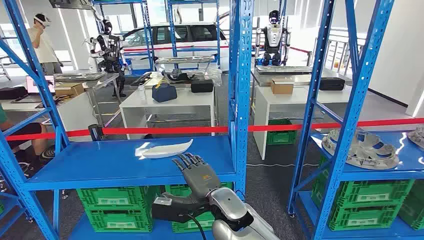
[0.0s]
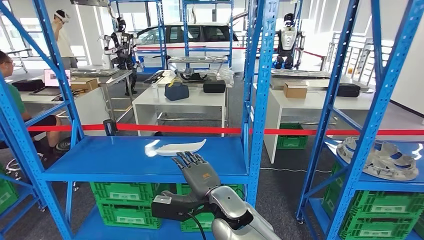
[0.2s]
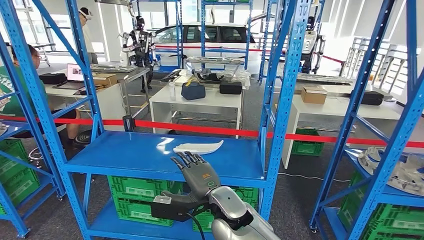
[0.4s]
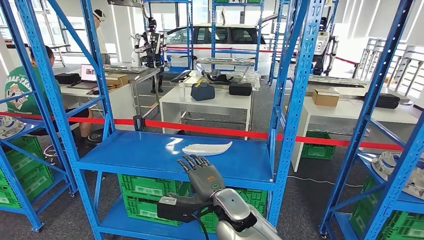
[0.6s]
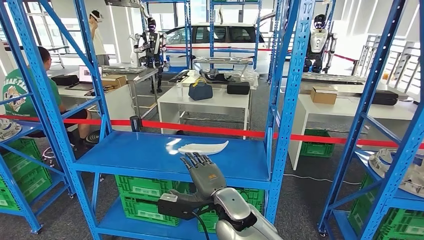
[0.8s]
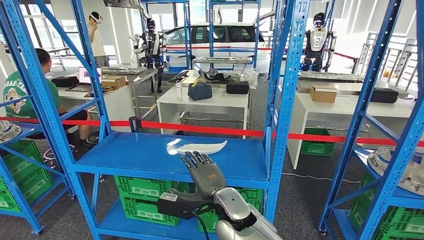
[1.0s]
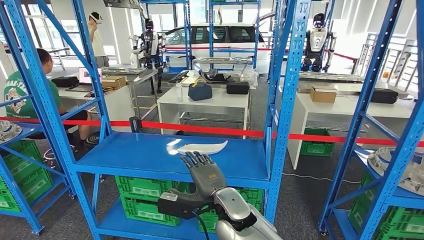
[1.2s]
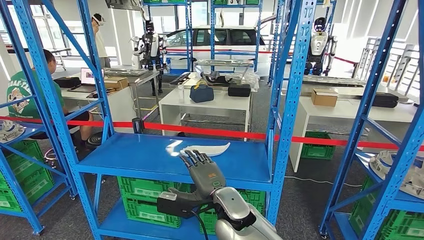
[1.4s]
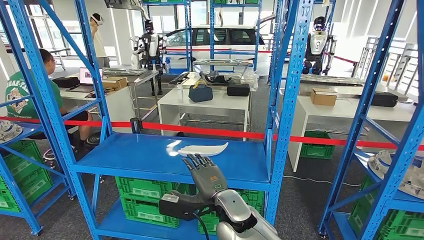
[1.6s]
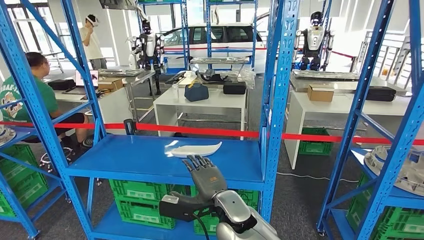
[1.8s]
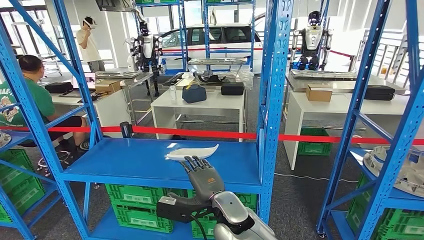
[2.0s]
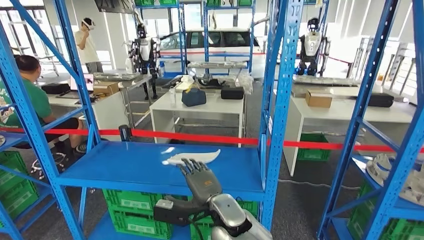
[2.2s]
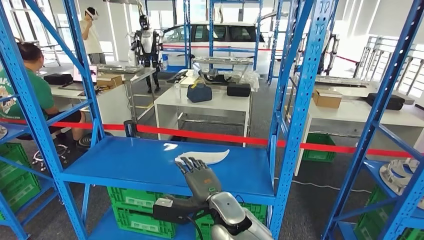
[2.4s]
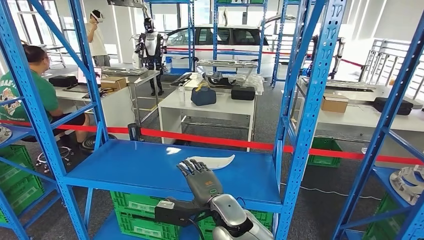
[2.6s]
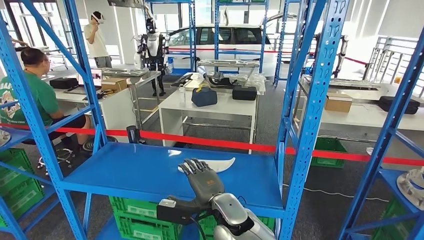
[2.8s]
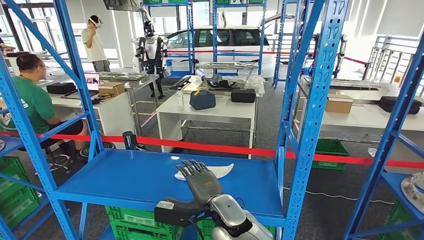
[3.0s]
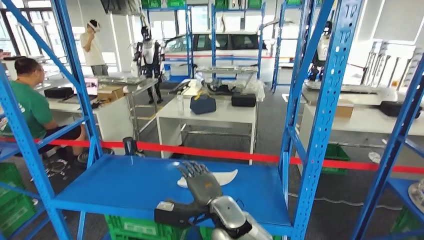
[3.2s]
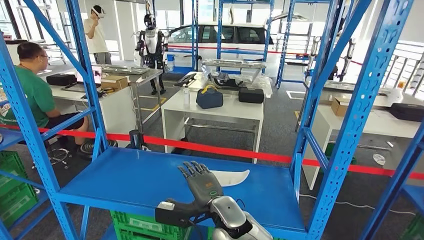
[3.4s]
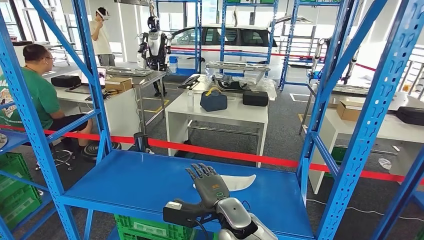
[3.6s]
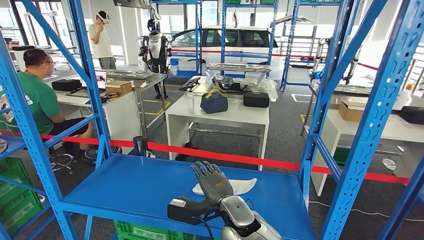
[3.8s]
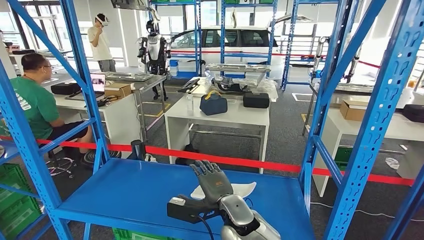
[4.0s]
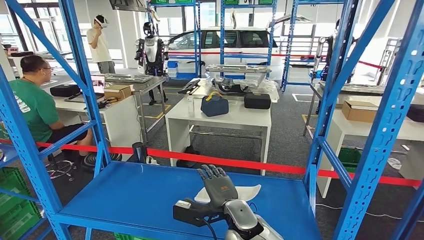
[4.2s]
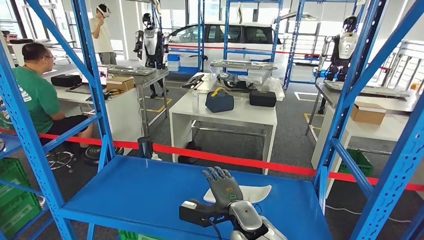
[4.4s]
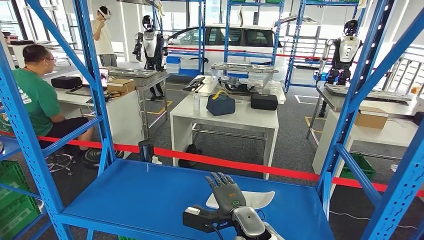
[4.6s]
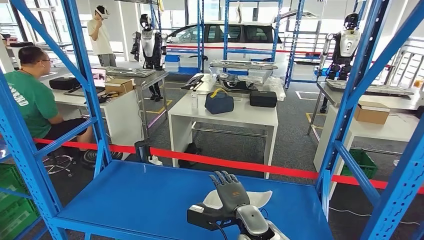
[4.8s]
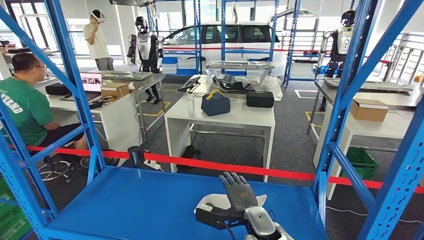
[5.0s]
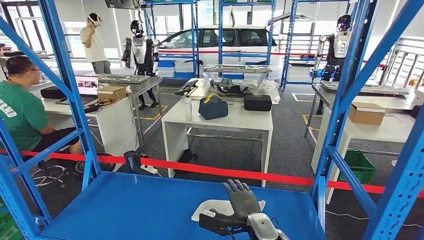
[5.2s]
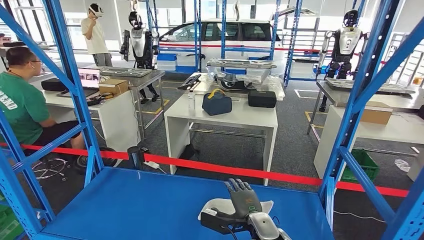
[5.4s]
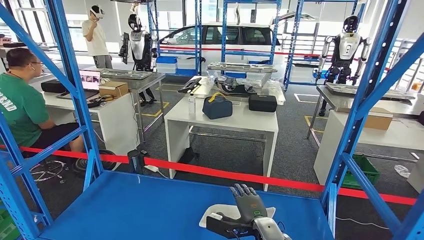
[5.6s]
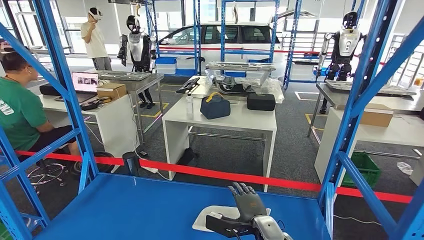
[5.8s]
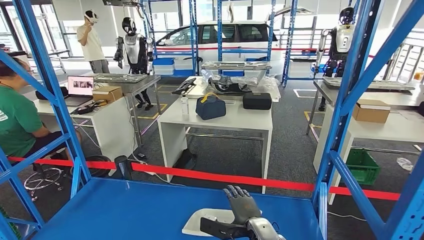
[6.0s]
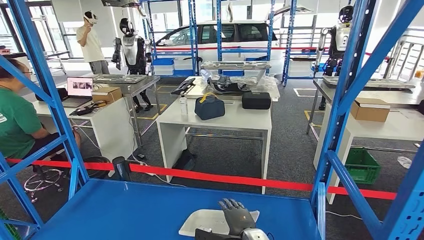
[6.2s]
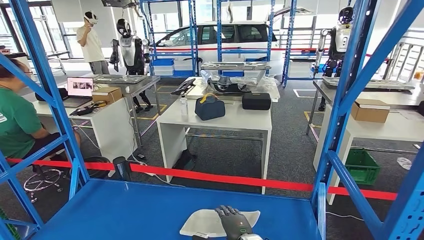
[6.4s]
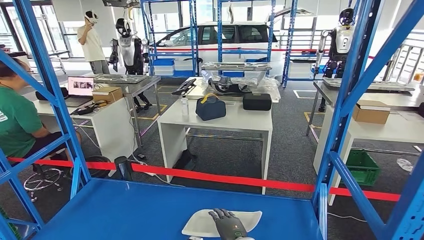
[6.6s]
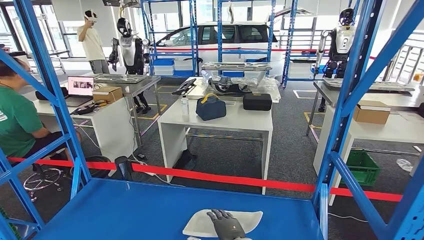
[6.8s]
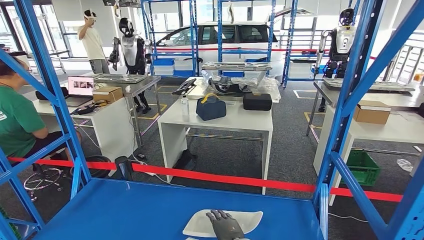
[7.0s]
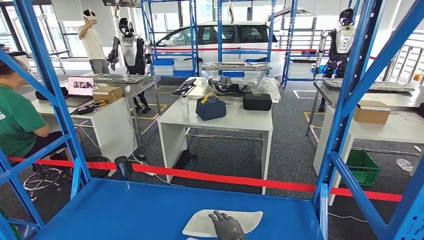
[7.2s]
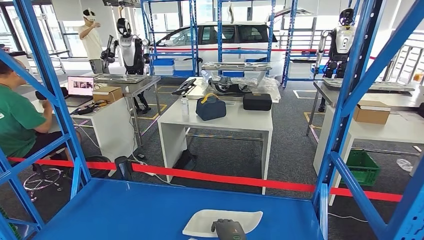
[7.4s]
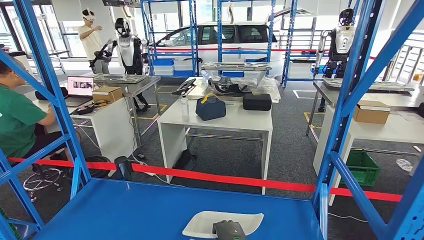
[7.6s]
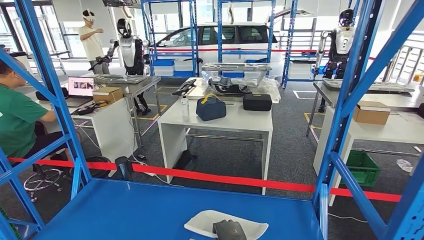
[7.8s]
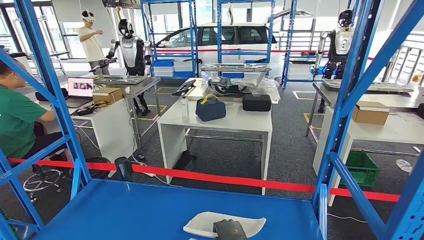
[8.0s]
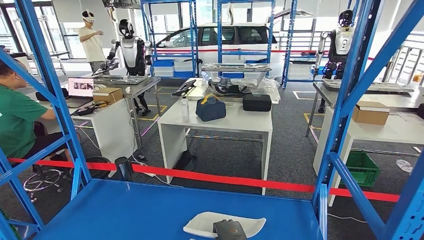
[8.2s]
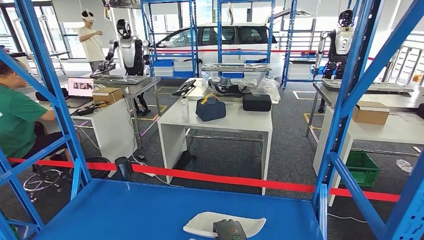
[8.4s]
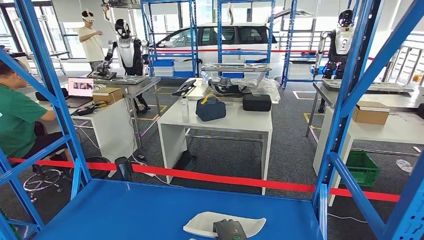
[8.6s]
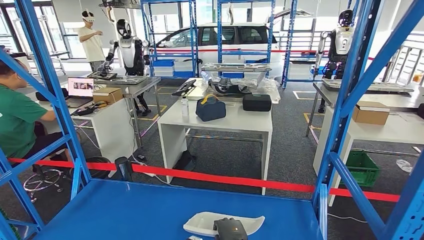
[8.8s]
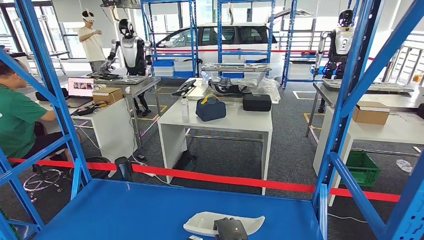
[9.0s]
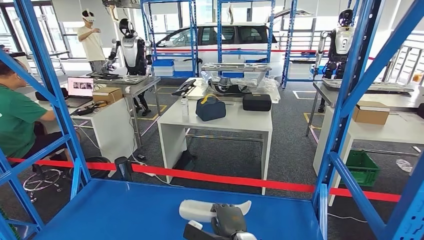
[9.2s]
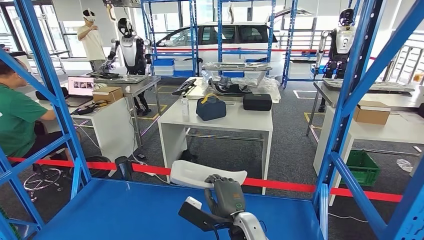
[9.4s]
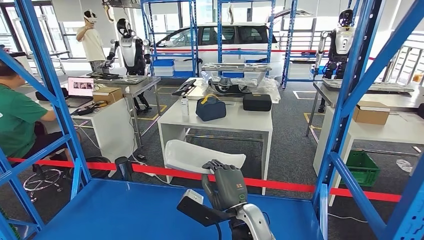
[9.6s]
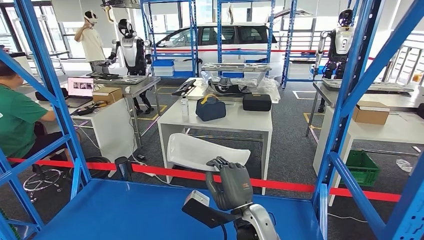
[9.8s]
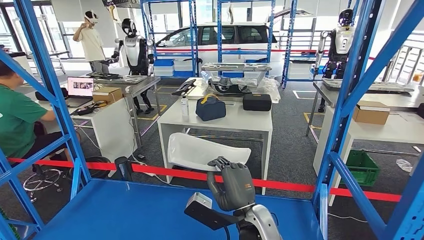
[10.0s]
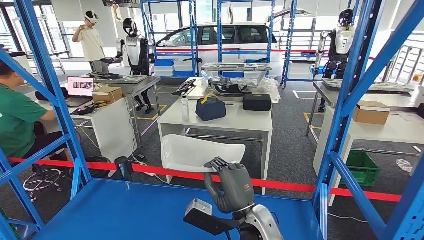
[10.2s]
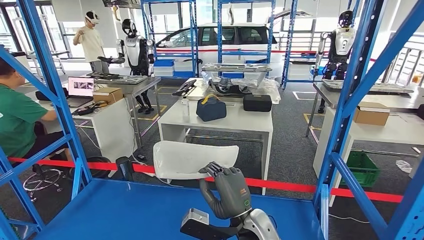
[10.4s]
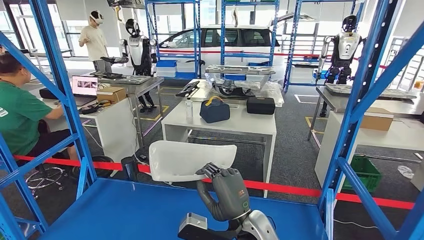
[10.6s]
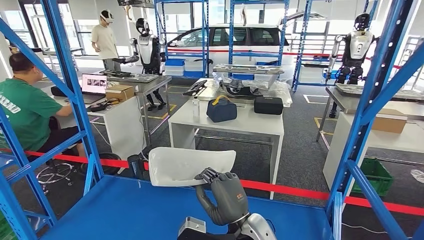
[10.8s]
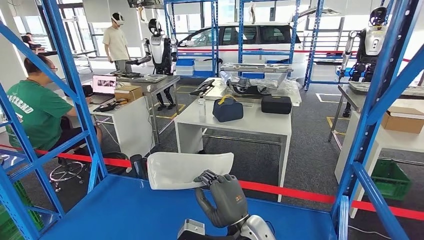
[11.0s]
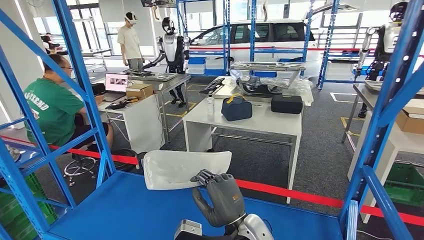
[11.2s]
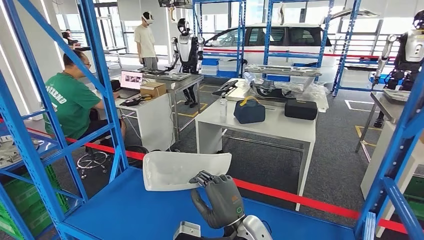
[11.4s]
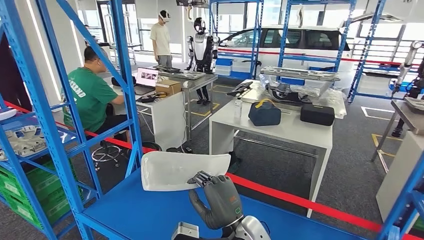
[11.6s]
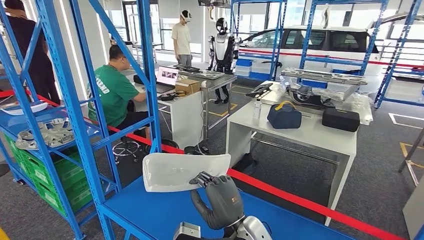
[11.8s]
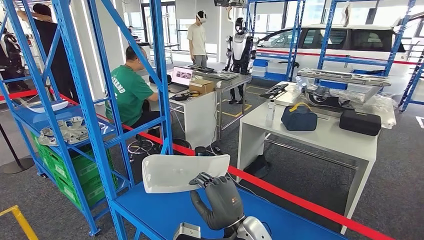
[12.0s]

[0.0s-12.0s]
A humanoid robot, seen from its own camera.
6.0s to 7.6s: The right hand shifts by roughly 5 cm.
7.6s to 9.0s: The two hands keep their place.
9.0s to 10.4s: The right hand heads upward, covering about 15 cm.

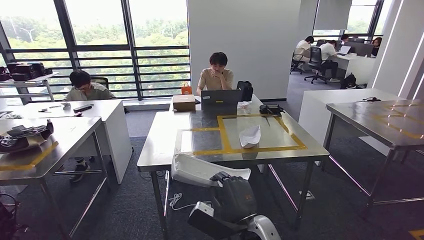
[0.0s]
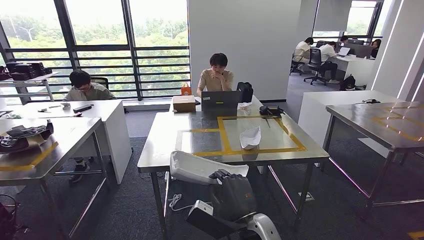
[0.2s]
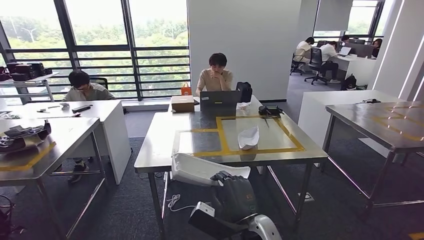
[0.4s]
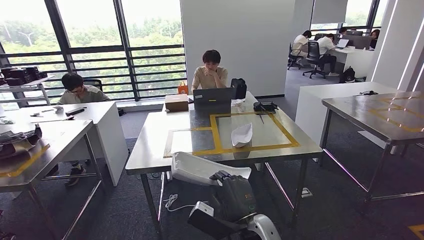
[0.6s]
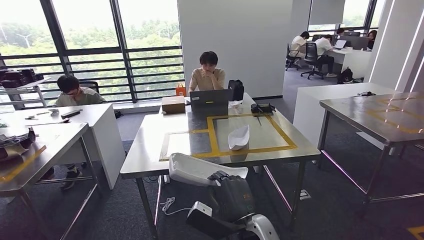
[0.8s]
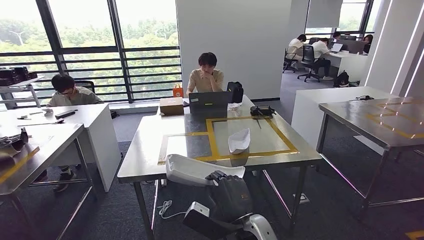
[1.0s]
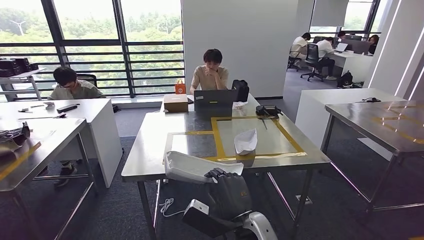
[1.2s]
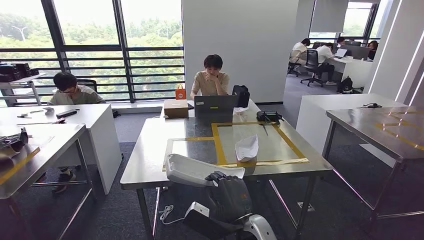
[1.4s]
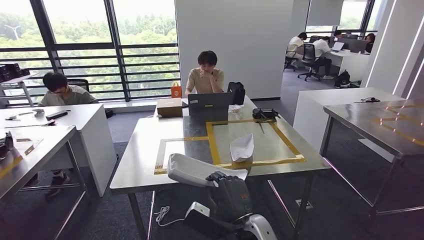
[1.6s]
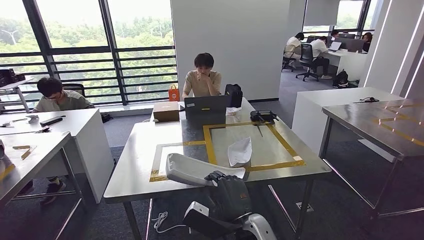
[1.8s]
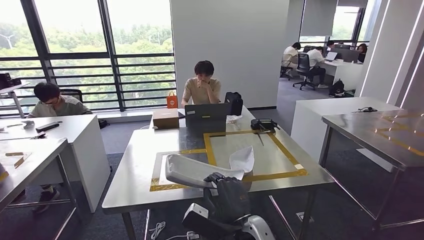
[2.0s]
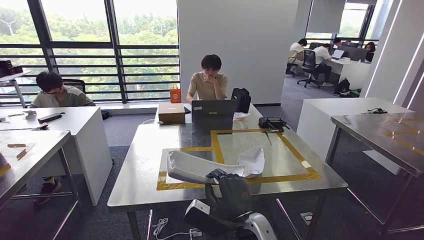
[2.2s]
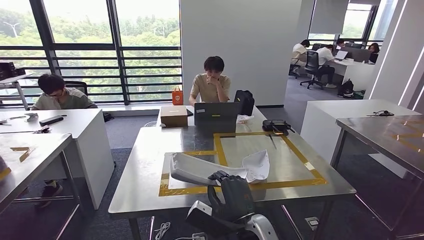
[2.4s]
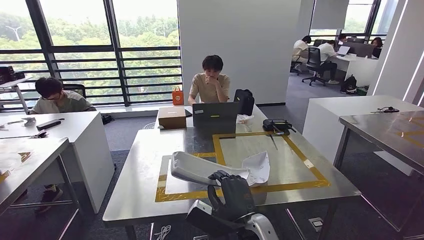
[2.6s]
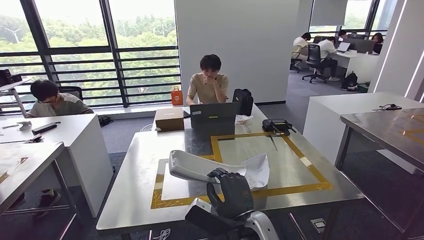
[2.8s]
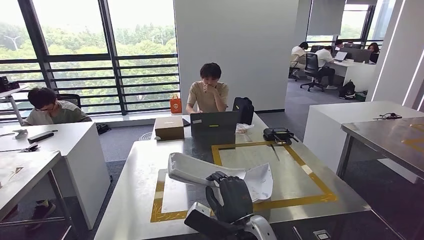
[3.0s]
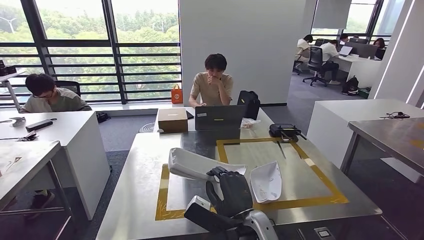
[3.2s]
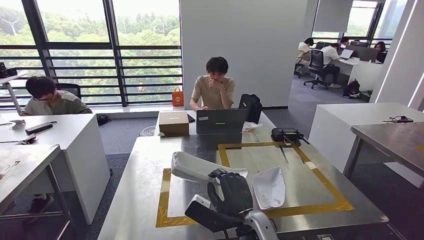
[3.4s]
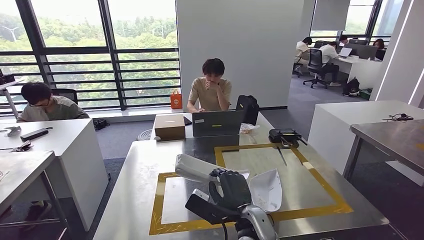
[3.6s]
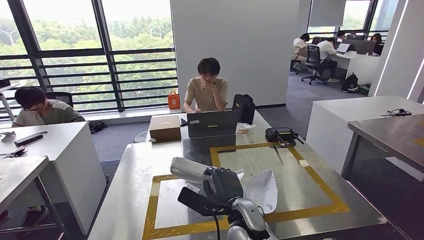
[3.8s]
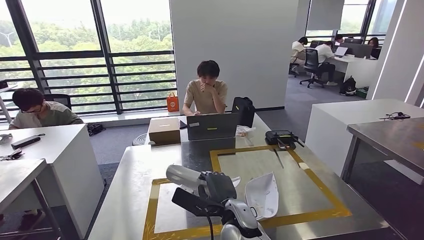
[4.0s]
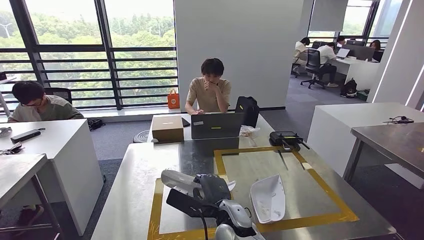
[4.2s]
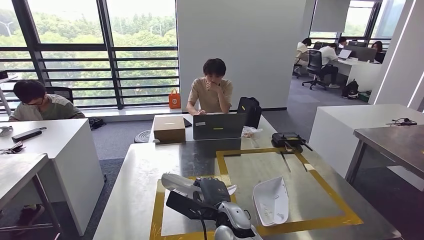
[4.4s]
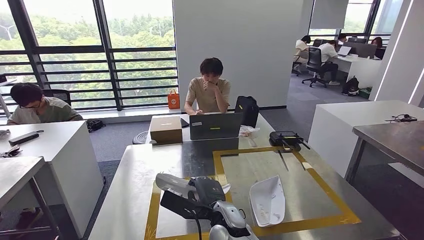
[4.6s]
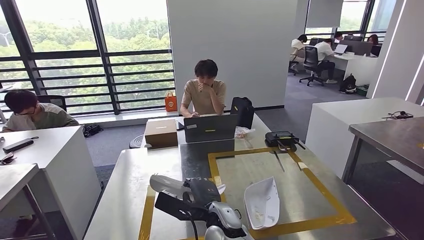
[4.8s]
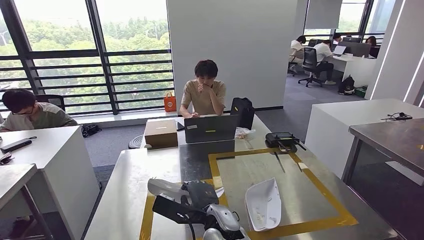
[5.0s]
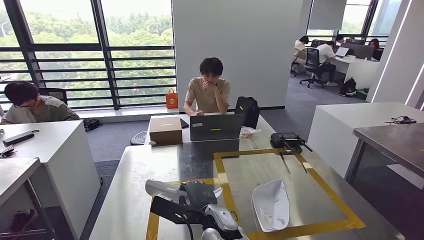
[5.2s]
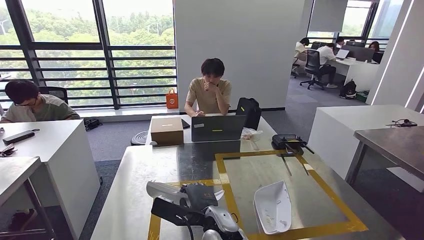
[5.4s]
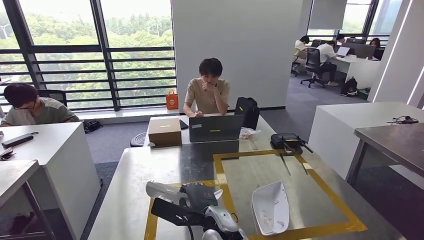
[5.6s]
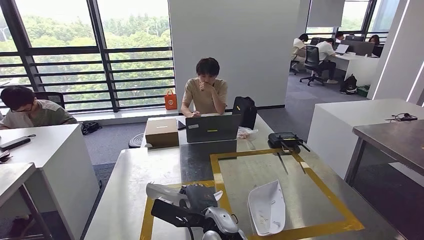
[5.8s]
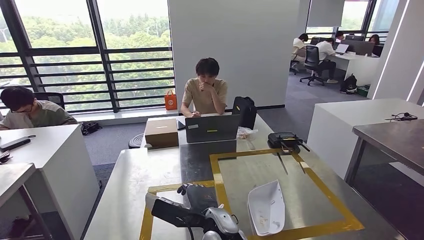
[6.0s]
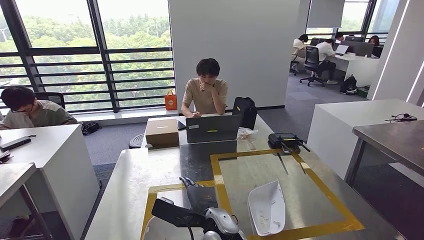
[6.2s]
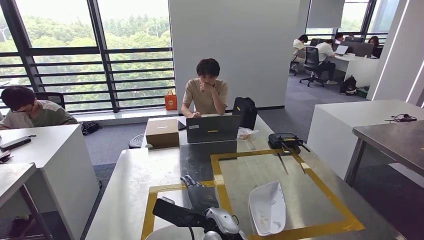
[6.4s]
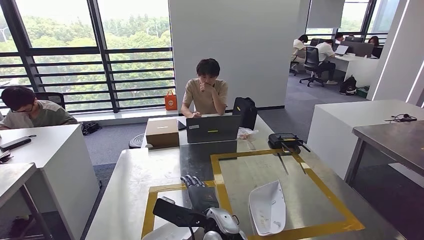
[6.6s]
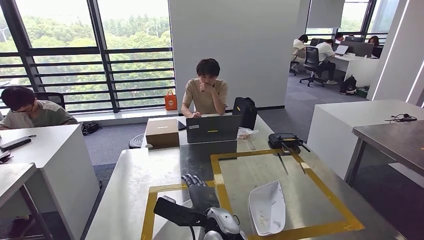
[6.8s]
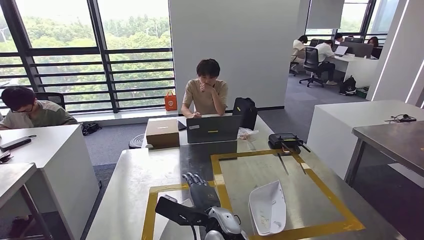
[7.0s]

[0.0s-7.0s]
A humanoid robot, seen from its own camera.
Step, 0.0s to 3.2s: Move the small component to the workbench.
